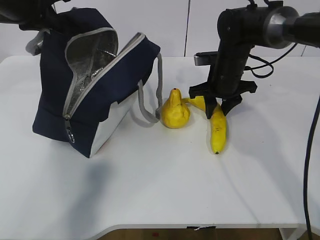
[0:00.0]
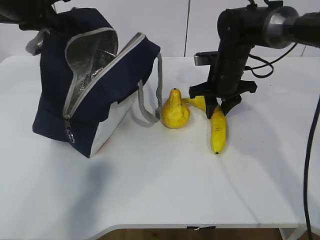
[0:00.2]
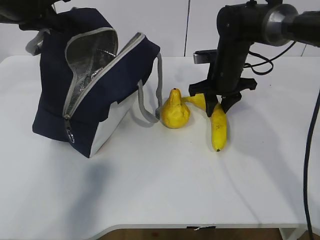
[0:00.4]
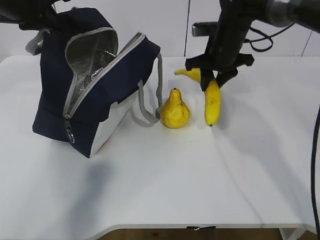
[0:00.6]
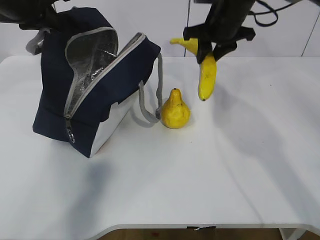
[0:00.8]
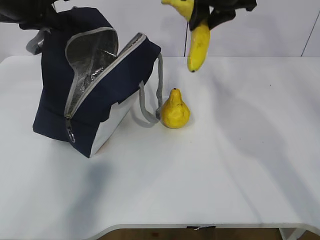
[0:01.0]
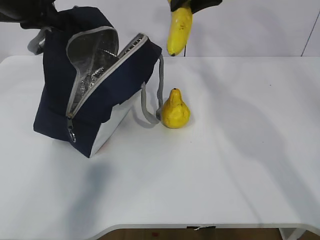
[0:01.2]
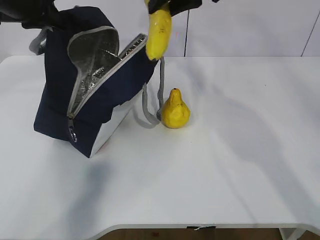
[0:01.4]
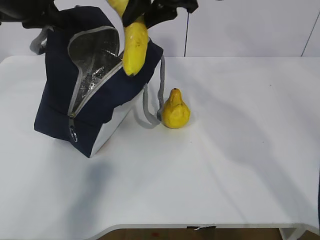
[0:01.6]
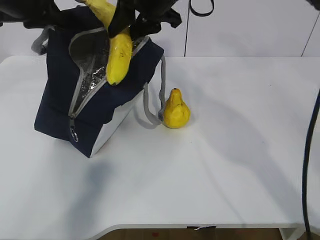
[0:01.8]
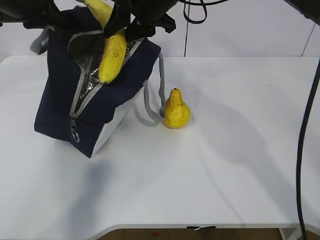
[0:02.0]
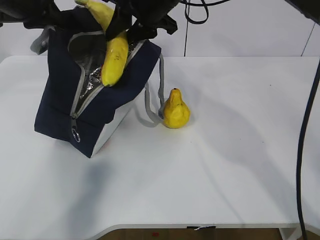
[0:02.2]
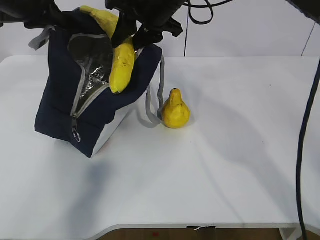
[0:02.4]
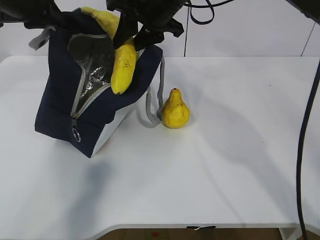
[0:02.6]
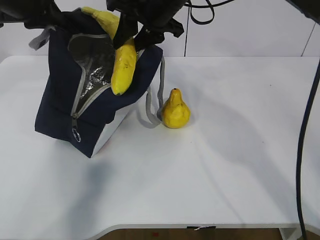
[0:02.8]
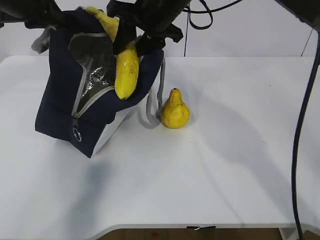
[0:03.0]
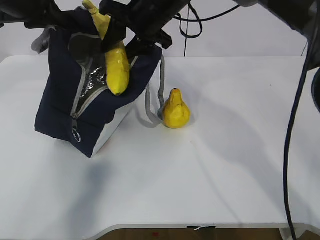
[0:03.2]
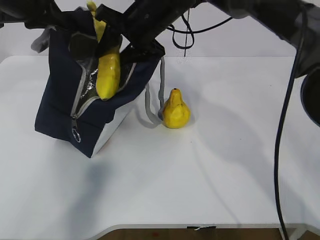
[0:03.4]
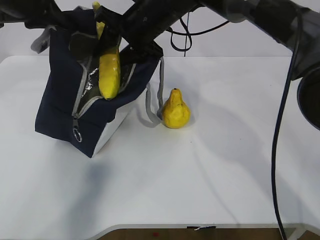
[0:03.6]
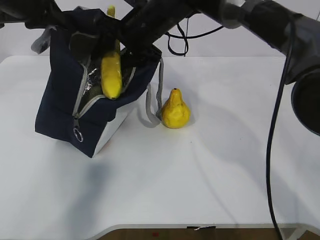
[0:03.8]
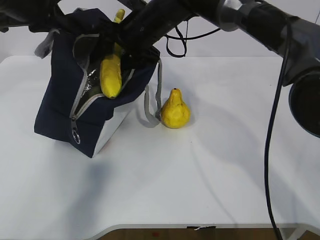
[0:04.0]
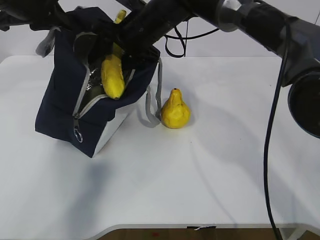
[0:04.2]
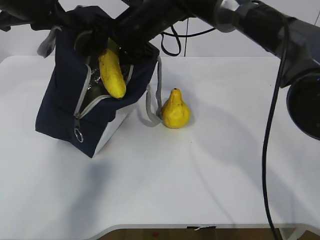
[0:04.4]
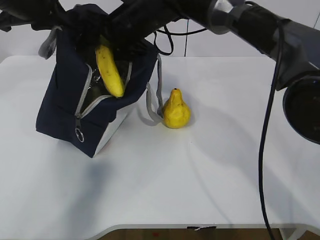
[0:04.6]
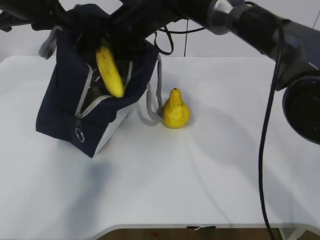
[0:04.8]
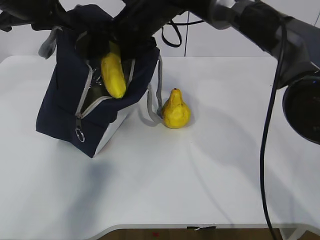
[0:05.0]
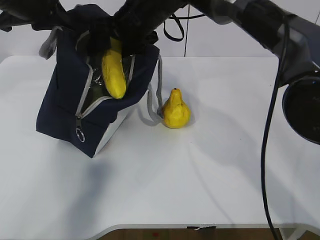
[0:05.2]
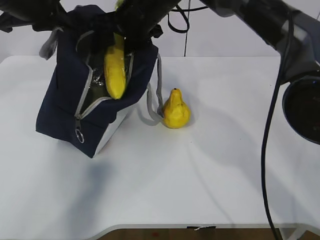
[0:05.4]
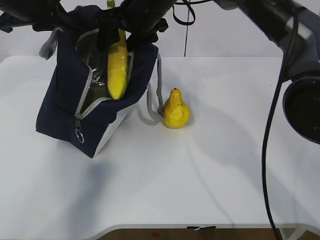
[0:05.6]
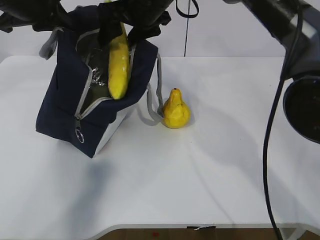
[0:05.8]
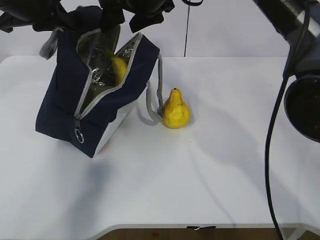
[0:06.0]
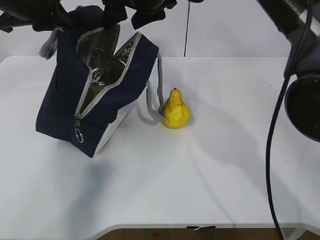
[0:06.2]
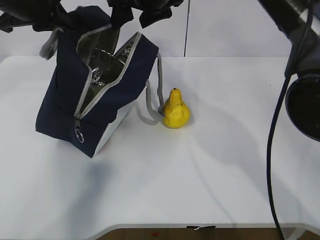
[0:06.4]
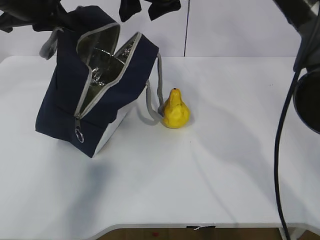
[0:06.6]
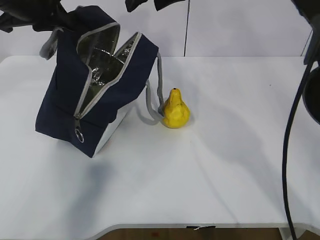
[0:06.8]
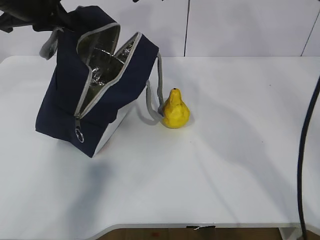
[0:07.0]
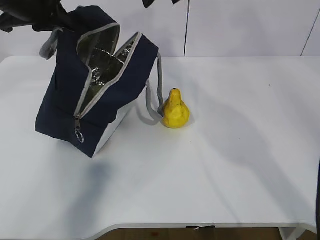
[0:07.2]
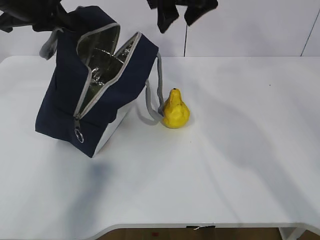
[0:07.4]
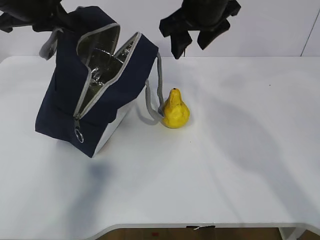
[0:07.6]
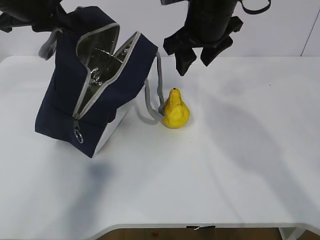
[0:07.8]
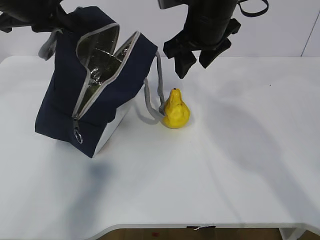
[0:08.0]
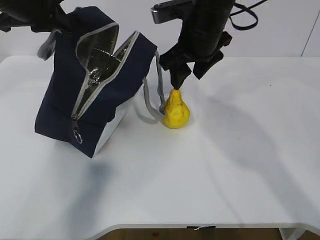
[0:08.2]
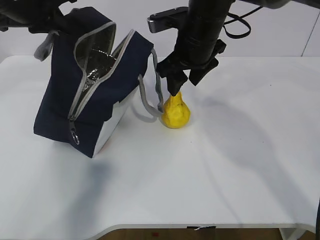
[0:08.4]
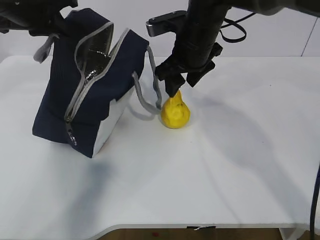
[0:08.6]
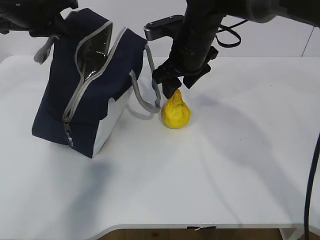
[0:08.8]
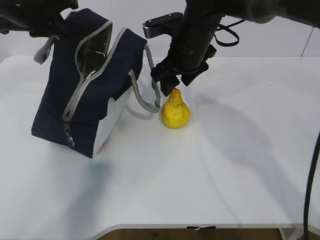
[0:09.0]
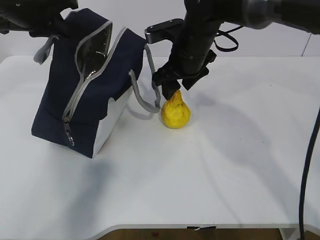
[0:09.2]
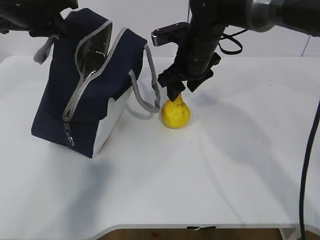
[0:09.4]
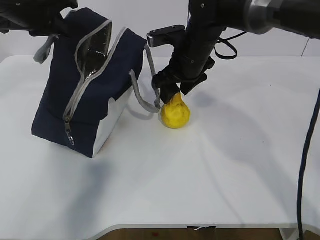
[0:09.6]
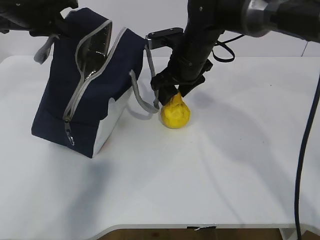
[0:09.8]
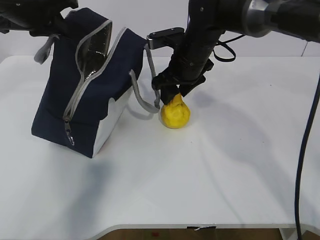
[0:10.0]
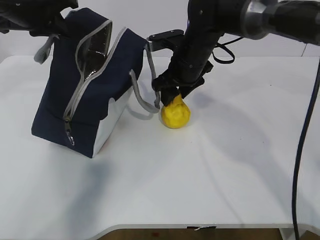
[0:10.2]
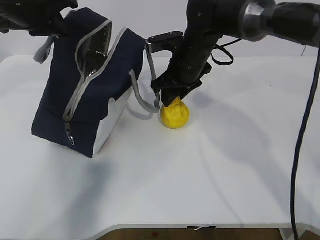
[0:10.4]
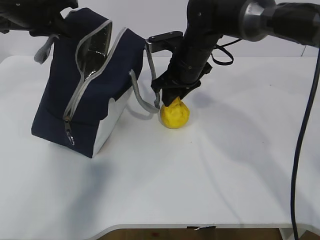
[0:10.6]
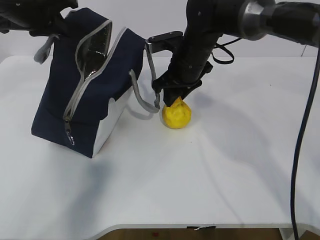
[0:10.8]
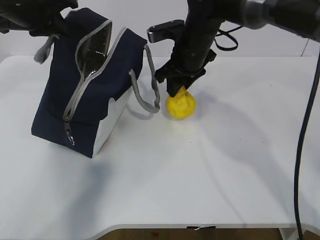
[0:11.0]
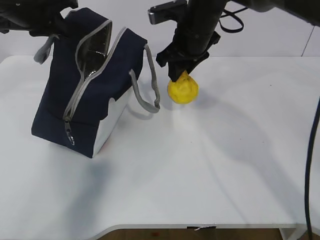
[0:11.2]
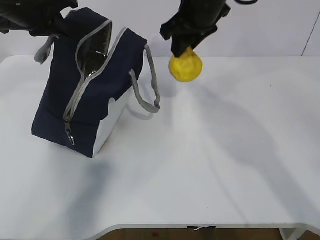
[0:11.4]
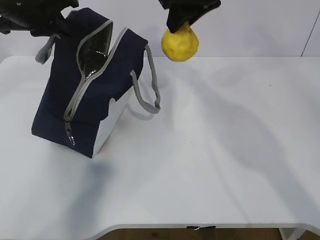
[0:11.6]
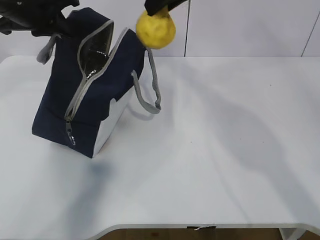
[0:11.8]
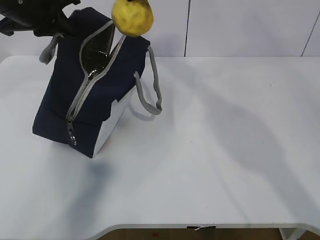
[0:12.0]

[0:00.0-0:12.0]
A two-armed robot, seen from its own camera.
Step, 0:01.2 to 0:04.8: Grab the pear with your right hand.
Step, 0:07.0 to 0:08.4: Grab the lunch bag with your right hand.
0:00.0 to 0:01.6: The right gripper moves upward and to the left, approximately 20 cm.
0:01.6 to 0:03.0: The right gripper shifts roughly 5 cm downward.
0:03.0 to 0:04.4: The right gripper ends up roughly 5 cm from where it was.
0:04.4 to 0:06.0: The right gripper is displaced upward by roughly 5 cm.
0:06.0 to 0:07.6: The right gripper shifts about 5 cm to the right.
0:07.6 to 0:09.0: The right gripper is displaced downward by some 10 cm.
0:09.0 to 0:10.4: The grippers move only a little.
0:10.4 to 0:12.0: The right gripper heads upward, covering some 20 cm.

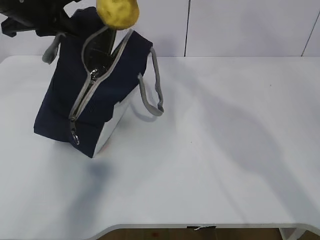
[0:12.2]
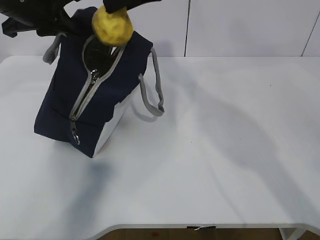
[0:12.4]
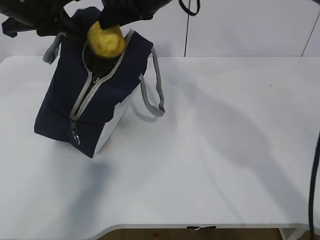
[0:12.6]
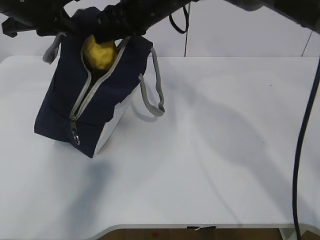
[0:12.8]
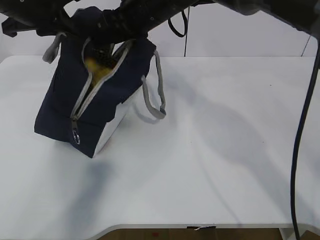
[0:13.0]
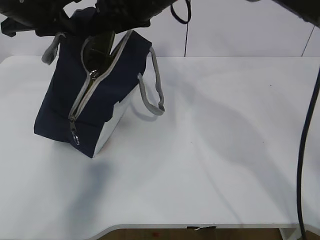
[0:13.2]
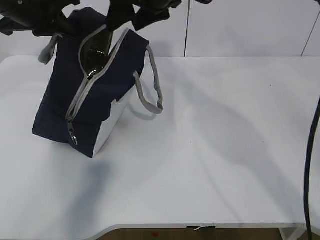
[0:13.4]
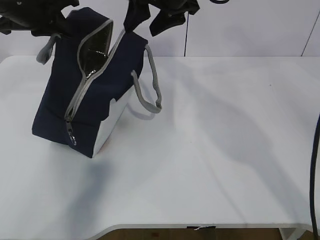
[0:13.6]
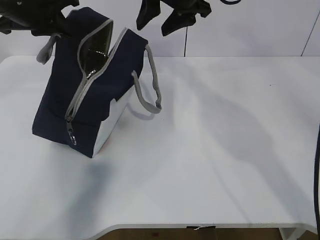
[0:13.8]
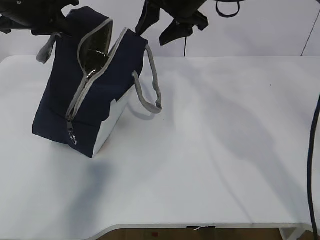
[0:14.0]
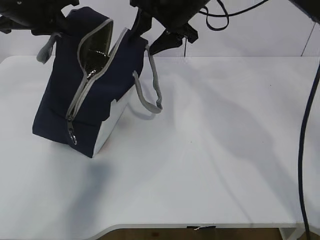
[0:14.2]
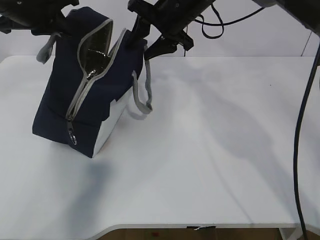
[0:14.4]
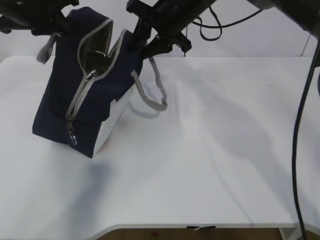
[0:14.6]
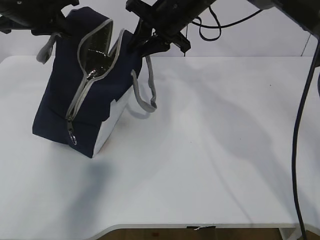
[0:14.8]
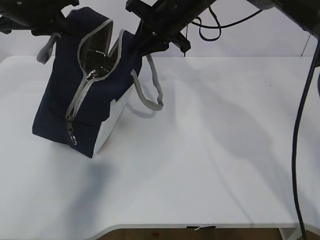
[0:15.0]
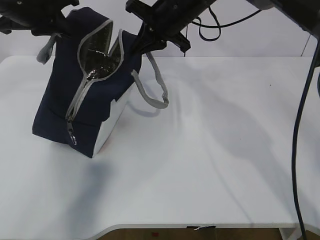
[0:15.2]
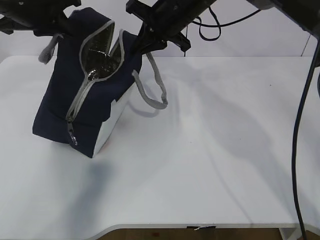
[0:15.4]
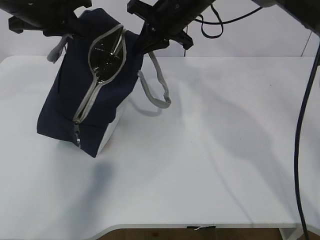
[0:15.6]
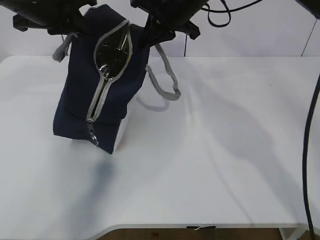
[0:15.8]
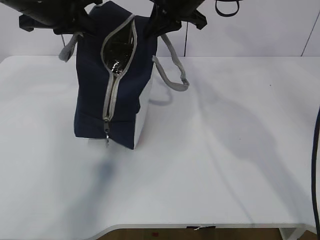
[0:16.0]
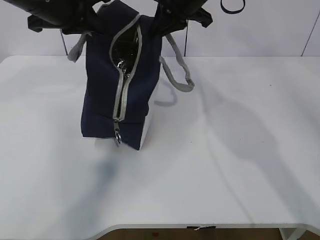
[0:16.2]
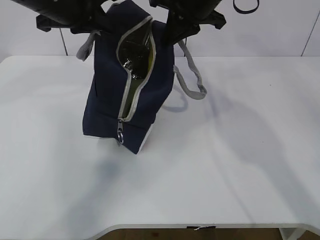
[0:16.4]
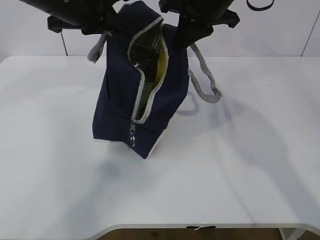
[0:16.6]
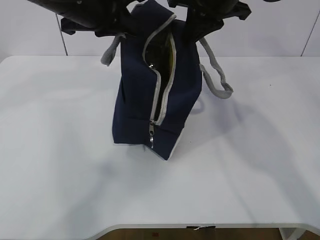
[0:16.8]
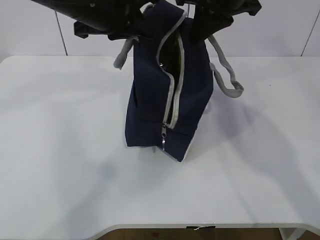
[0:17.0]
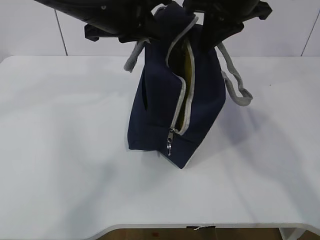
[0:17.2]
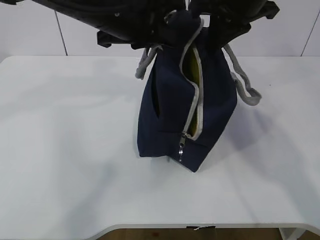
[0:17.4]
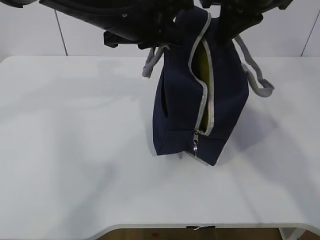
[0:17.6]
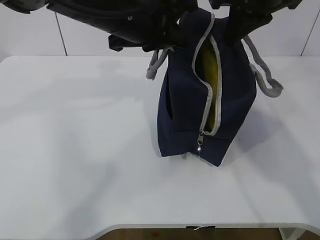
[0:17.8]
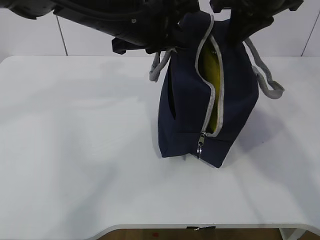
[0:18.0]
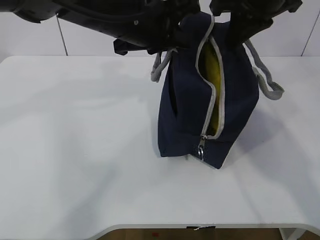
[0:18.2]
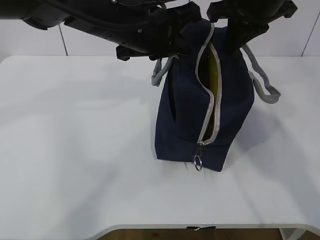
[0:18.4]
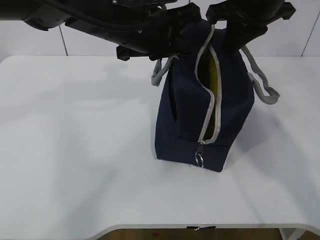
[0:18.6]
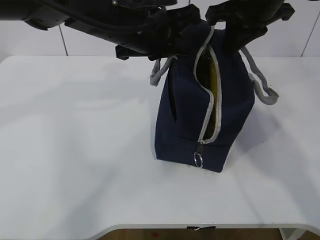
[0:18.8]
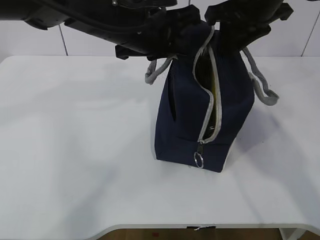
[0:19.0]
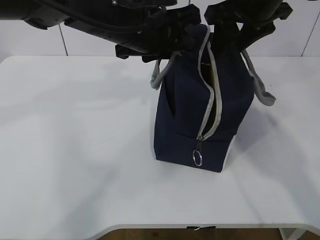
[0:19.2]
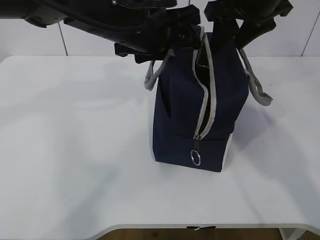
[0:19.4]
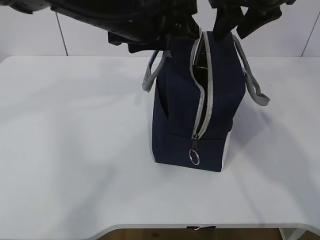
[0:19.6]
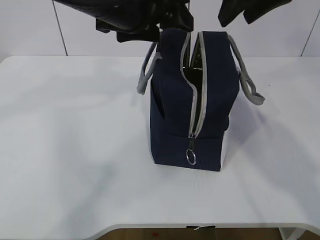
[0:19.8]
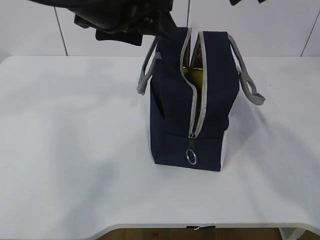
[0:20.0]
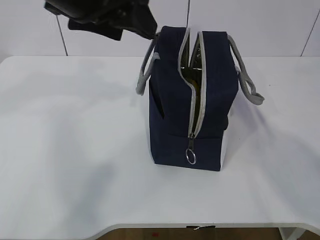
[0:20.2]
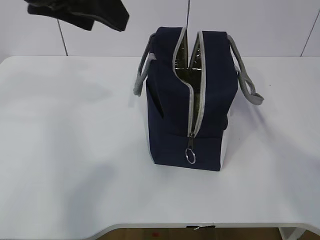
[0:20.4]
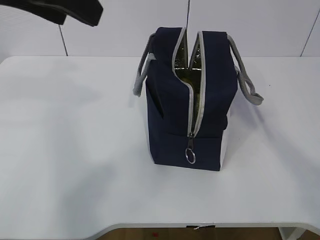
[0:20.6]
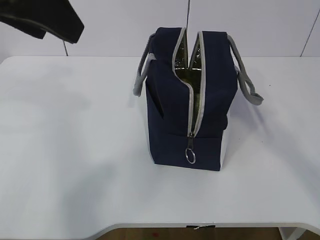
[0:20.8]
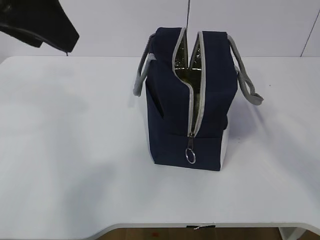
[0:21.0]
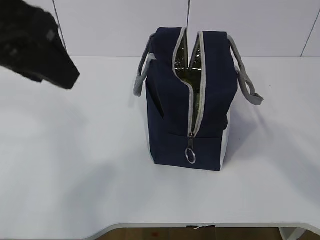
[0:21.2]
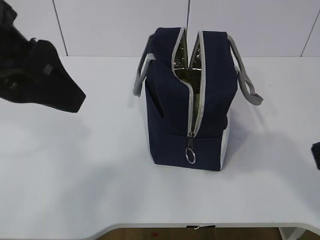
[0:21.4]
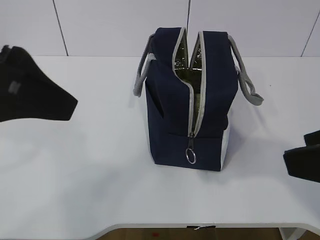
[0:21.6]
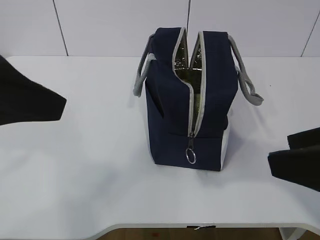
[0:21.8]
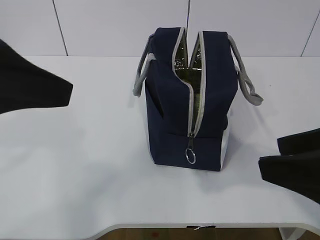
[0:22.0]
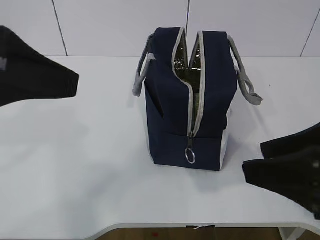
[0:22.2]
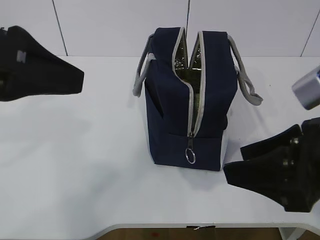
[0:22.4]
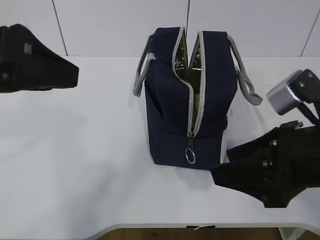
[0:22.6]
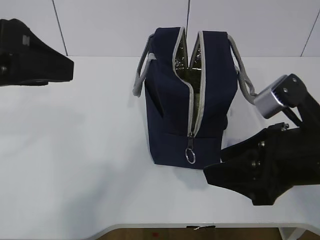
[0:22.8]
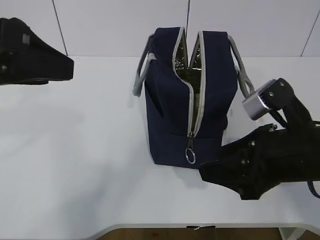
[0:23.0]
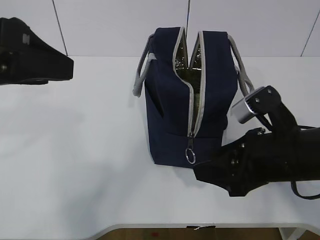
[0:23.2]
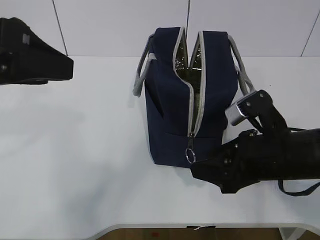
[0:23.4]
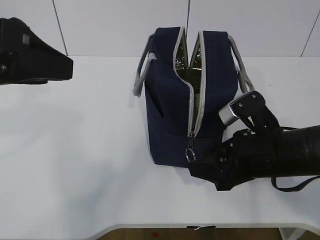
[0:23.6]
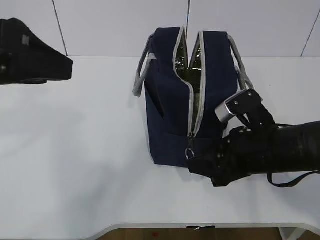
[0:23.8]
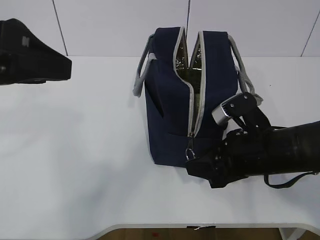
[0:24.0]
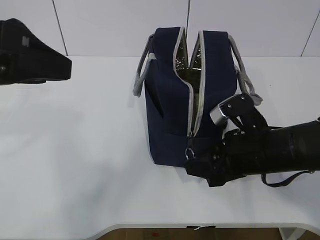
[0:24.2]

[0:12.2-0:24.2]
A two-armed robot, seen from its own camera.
0:12.2 to 0:13.8: The right gripper goes approximately 5 cm downward.
0:13.8 to 0:15.2: The right gripper shifts roughly 5 cm downward, and closes its fingers.
0:15.2 to 0:16.6: The right gripper ends up approximately 10 cm from where it was. The left gripper moves to the right, about 10 cm.
0:16.6 to 0:18.2: The right gripper goes some 5 cm to the right, while the left gripper heads to the right, covering about 10 cm.
0:18.2 to 0:19.8: The right gripper opens its fingers. Meanwhile the left gripper opens.
0:19.8 to 0:21.2: The right gripper goes roughly 25 cm backward, while the left gripper goes roughly 15 cm backward and to the left.
0:21.2 to 0:22.6: The right gripper goes about 15 cm downward and forward; the left gripper shifts by some 5 cm.
0:22.6 to 0:24.2: The right gripper is displaced downward and forward by roughly 10 cm.
